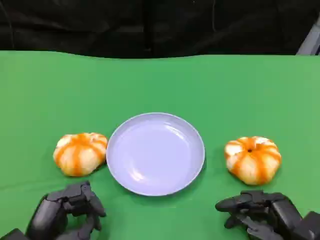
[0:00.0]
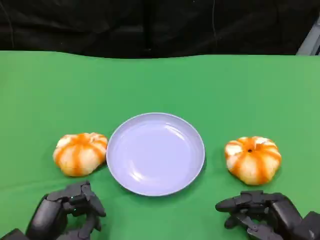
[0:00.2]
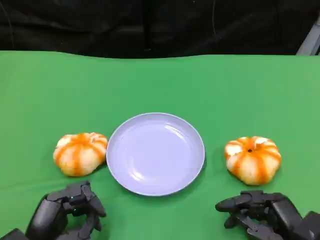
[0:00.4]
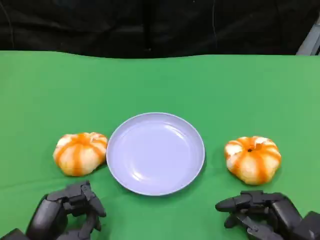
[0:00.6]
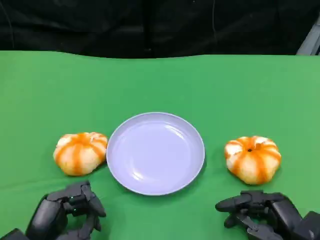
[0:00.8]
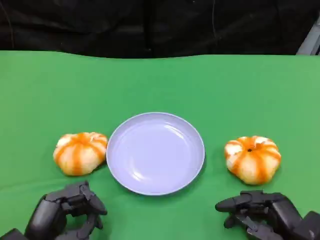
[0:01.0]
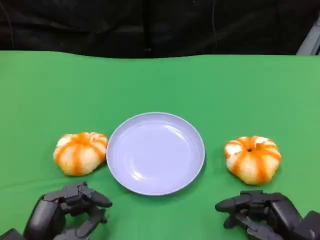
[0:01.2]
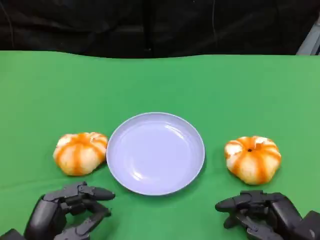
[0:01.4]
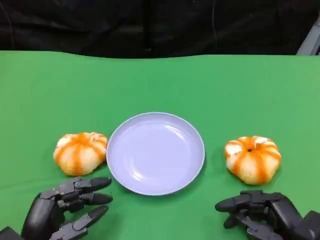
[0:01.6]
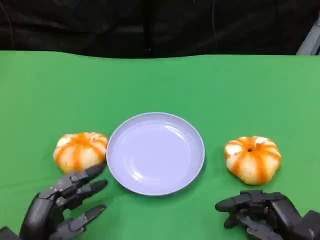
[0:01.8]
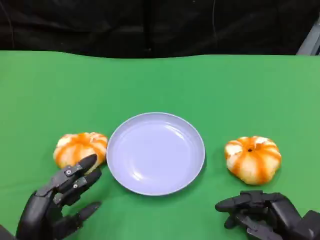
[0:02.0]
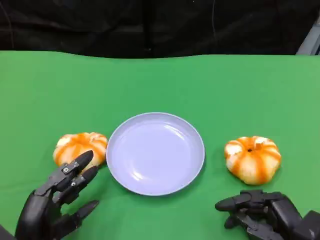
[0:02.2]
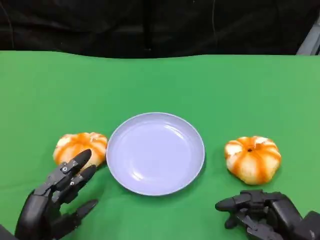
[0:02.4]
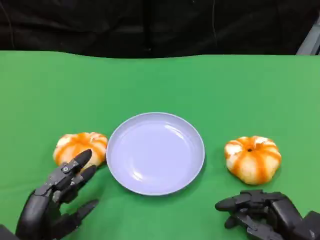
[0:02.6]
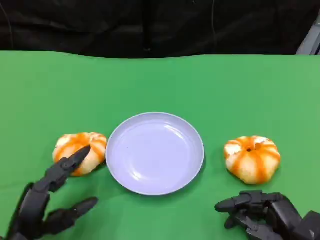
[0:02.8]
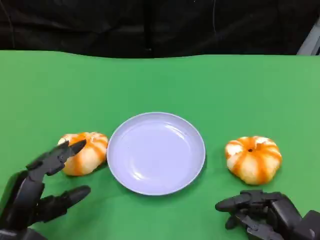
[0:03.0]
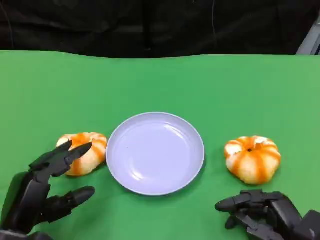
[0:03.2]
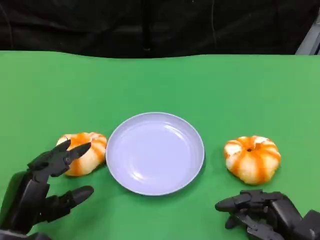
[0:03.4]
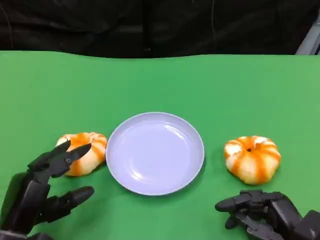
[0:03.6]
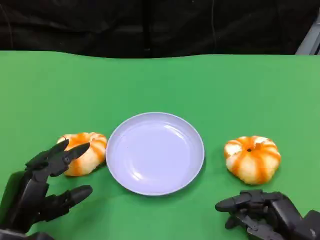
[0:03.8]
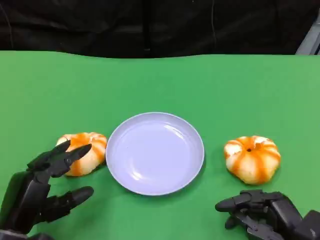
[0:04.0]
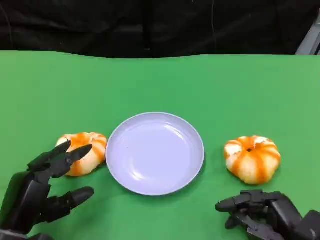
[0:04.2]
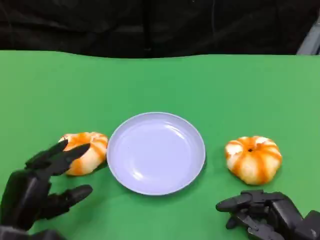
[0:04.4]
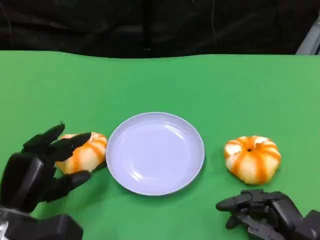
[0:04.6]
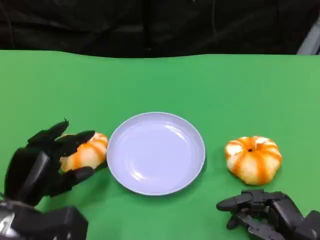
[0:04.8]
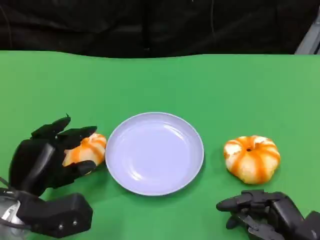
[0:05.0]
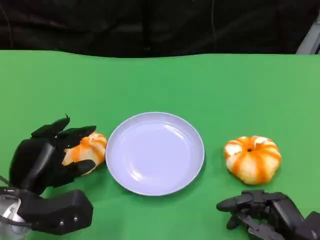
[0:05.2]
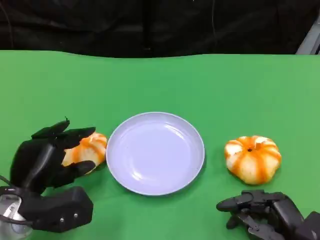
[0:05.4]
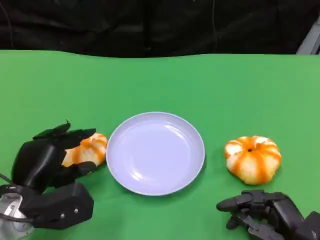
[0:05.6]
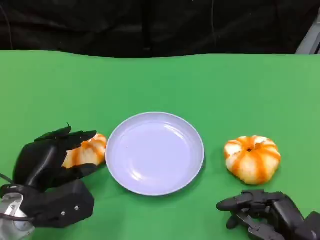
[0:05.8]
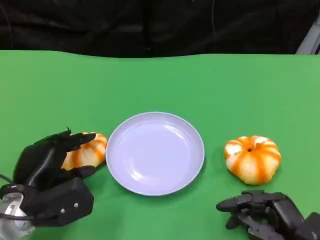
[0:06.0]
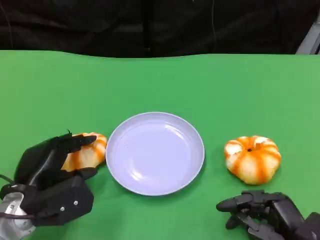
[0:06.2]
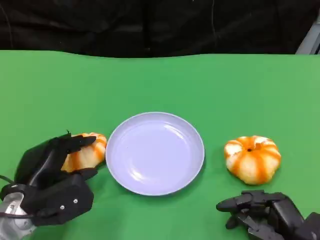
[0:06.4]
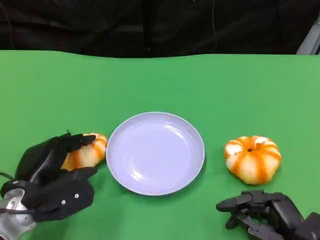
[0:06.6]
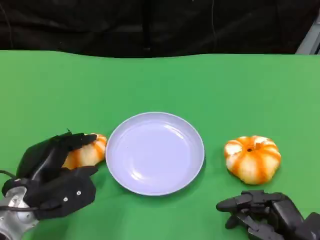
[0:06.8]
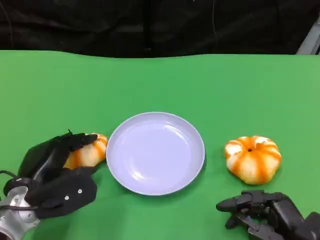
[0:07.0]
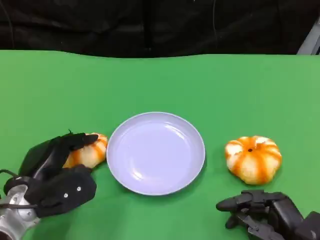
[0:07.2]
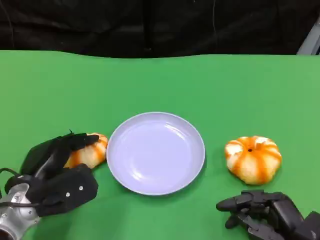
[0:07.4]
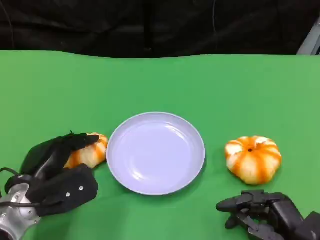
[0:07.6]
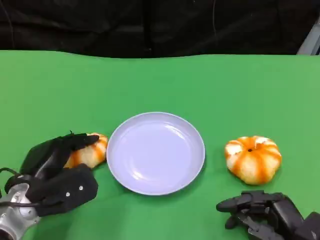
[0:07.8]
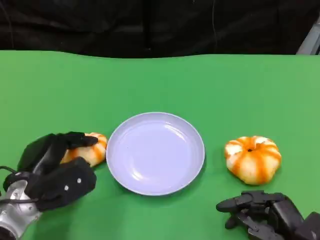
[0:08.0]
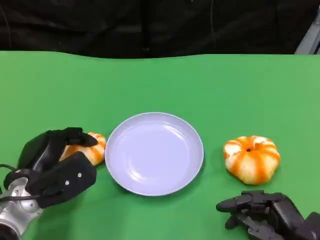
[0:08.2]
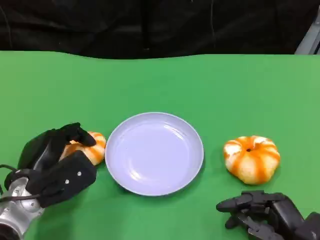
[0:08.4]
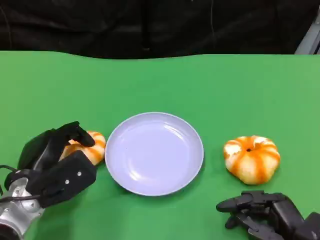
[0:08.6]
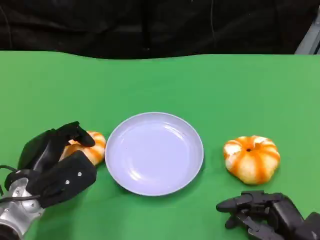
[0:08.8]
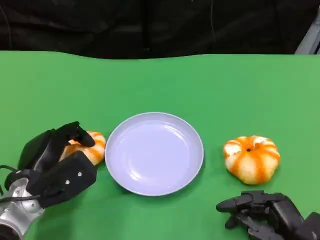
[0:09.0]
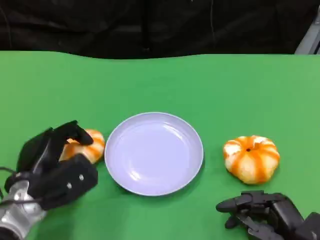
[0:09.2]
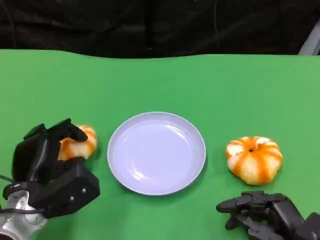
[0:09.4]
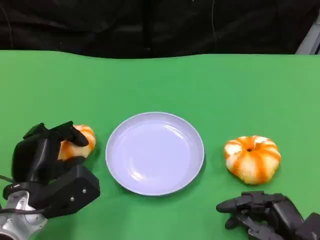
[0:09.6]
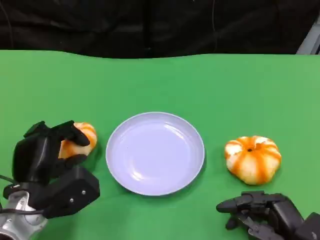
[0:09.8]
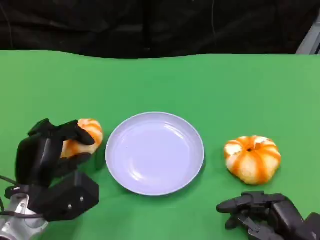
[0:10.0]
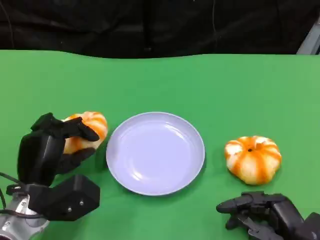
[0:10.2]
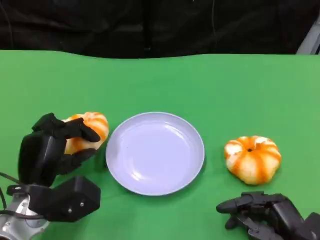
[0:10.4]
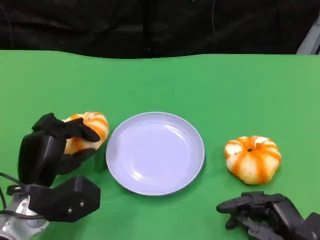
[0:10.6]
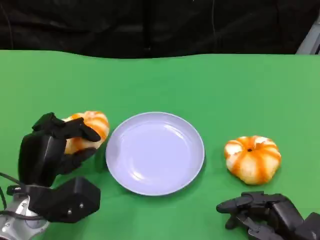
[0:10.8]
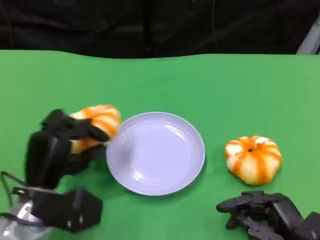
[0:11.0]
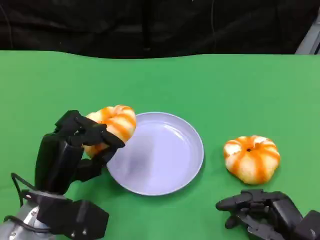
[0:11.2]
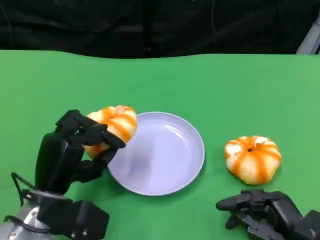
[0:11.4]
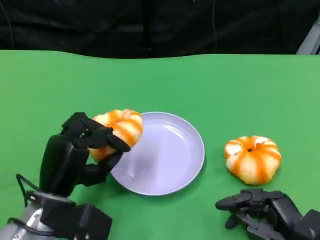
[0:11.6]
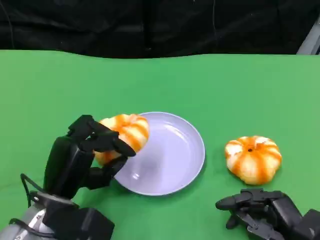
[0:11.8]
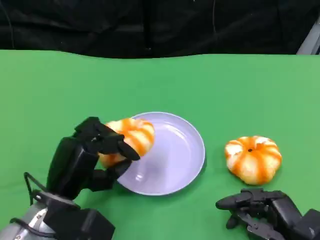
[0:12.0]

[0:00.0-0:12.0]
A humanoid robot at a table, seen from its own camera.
Task of the whole recording: Grasp the bread from the table and place it into the plate.
0:00.0 to 0:01.6: Neither hand changes place.
0:03.0 to 0:04.4: There are only small adjustments of the hands.
0:04.4 to 0:06.0: The left hand moves roughly 5 cm.
0:06.0 to 0:09.0: The hands move only a little.

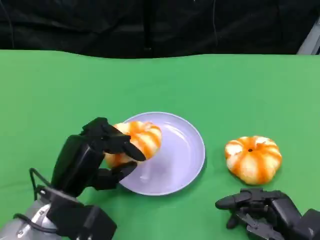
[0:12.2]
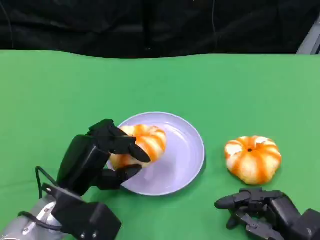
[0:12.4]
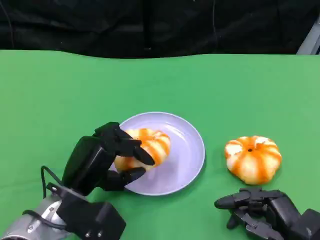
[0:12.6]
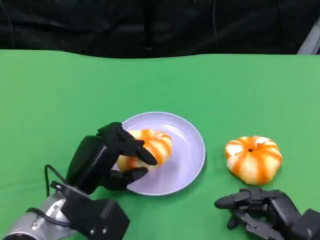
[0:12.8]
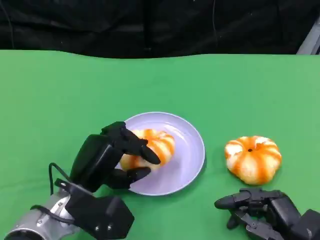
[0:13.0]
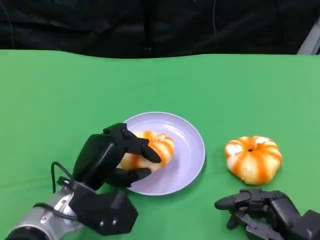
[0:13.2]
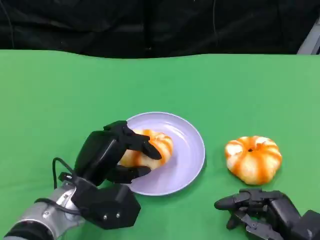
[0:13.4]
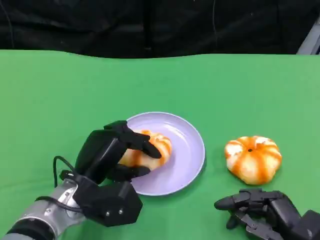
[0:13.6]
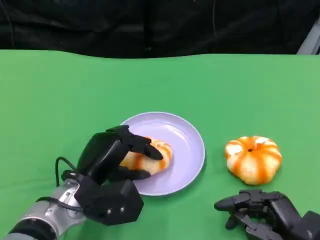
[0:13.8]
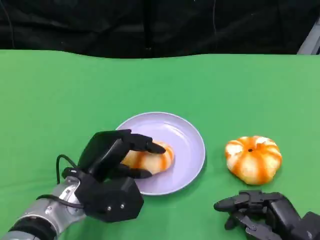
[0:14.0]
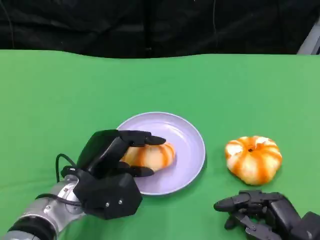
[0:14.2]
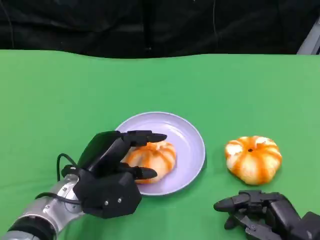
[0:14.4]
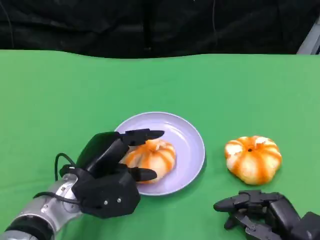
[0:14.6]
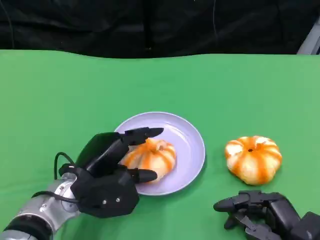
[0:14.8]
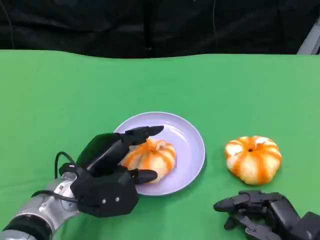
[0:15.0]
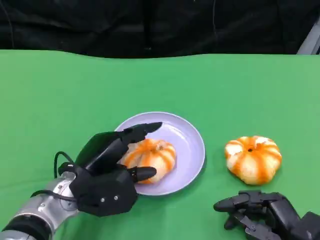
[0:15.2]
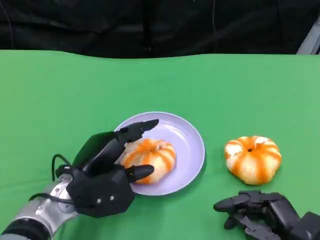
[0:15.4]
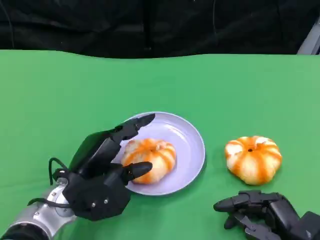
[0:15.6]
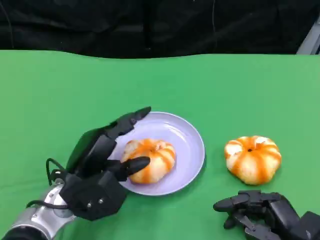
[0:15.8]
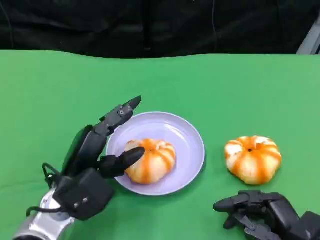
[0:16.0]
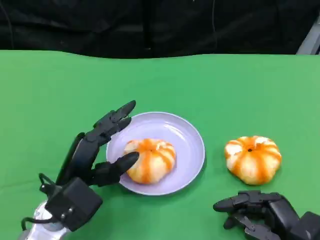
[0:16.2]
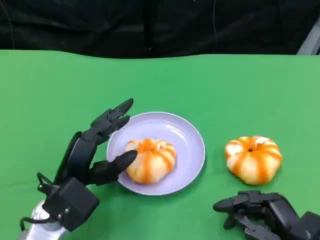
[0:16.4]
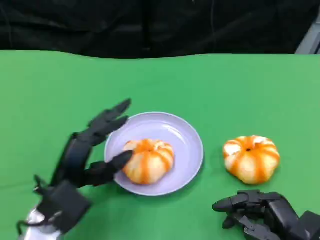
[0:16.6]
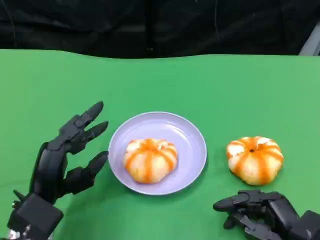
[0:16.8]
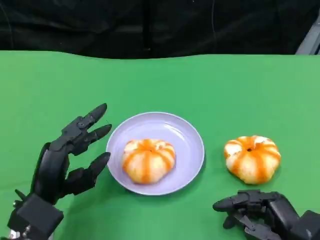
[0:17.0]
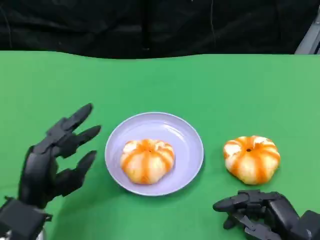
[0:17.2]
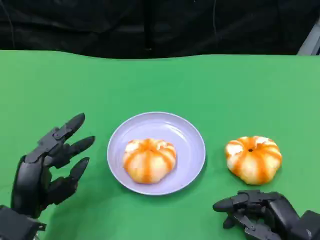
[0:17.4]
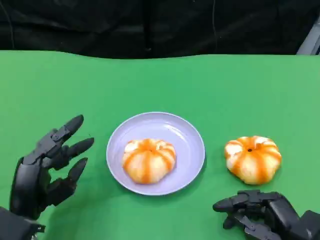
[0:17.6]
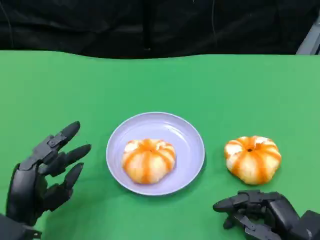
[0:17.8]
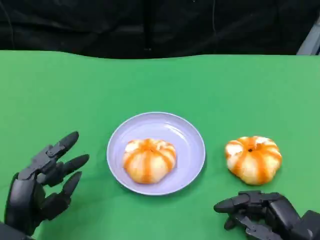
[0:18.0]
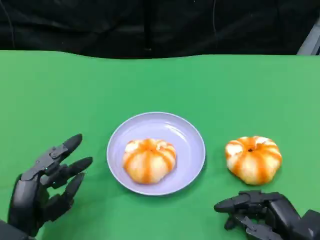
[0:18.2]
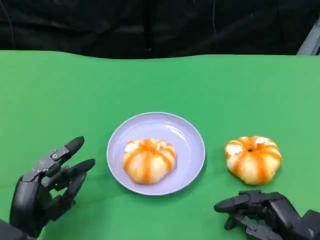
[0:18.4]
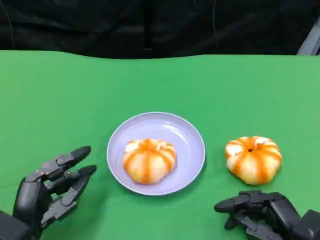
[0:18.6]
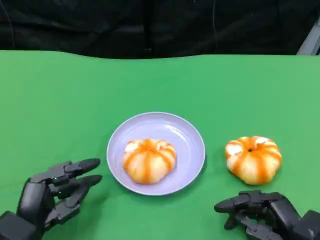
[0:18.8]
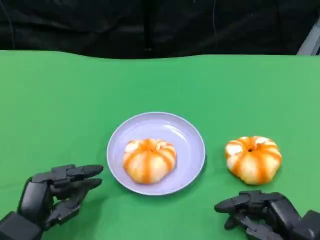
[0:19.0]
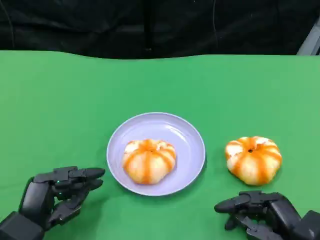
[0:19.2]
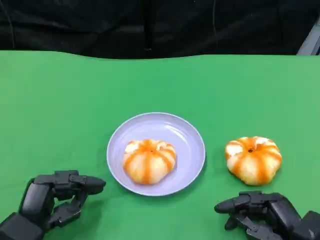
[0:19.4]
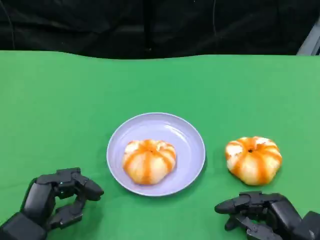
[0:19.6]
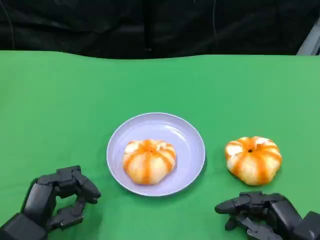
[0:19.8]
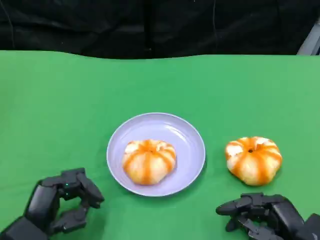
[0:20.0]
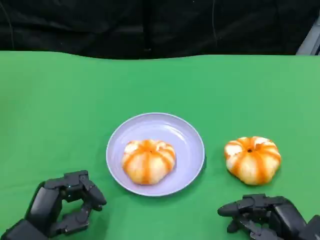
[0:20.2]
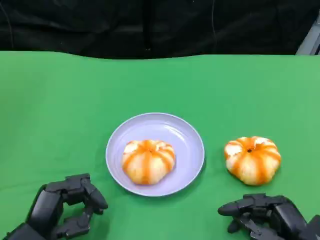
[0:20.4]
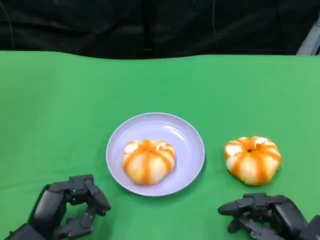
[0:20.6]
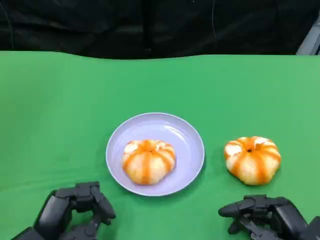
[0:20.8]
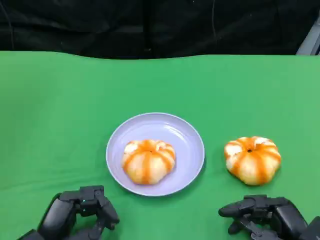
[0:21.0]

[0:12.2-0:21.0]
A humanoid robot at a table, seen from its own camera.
Task of the whole recording: Grasp the bread from the table and place it into the plate.
0:12.2 to 0:13.6: There are only small adjustments of the hands.
0:13.6 to 0:15.2: The hands move only a little.
0:16.6 to 0:18.0: The left hand shifts by some 5 cm.
0:18.0 to 0:21.0: The hands stay close to where they were, moving slightly.

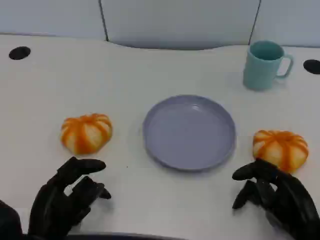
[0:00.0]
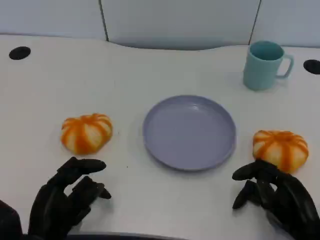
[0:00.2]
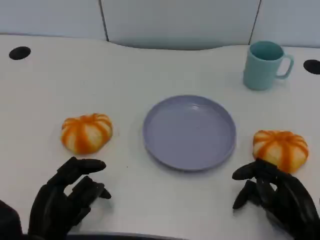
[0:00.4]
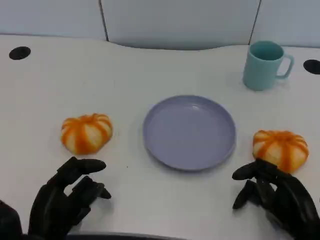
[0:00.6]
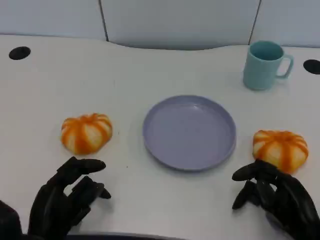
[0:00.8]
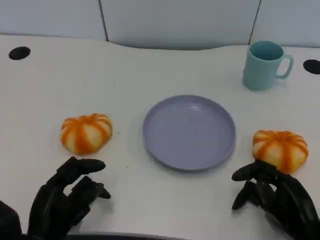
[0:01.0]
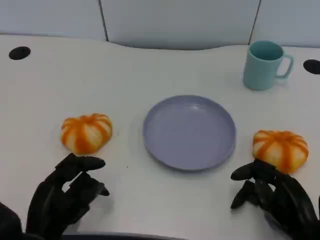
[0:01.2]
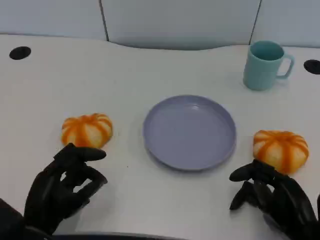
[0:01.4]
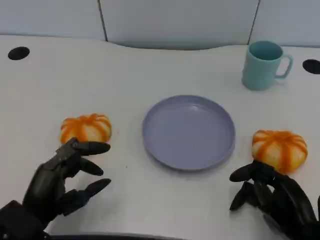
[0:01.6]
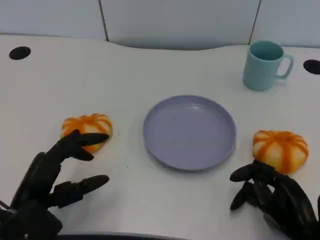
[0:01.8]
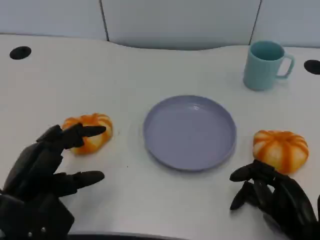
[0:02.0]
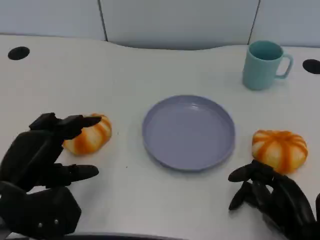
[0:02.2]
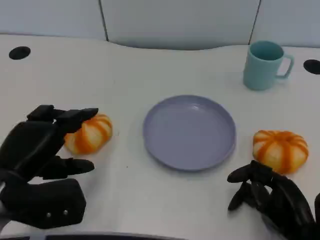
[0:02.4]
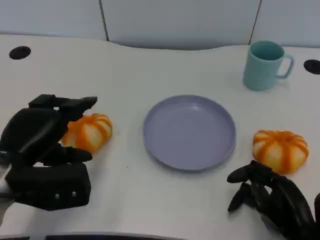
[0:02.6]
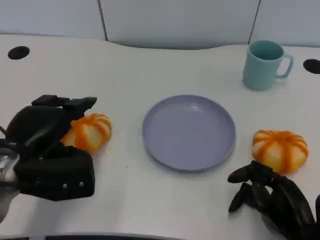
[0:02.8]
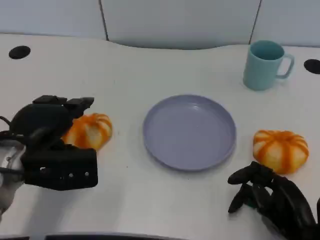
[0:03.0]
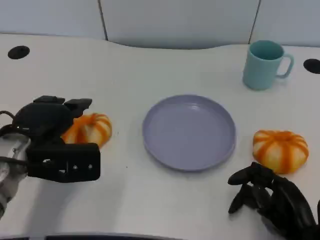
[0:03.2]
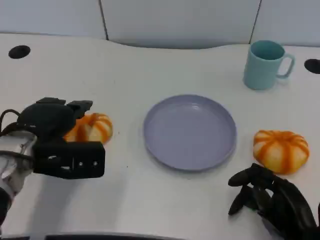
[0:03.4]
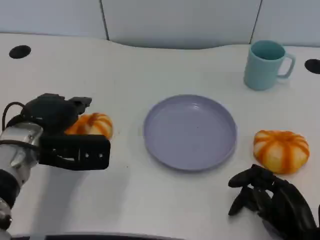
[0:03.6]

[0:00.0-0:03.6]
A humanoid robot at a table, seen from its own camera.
Task of the whole recording: Grasp the bread from the table and place it into the plate.
0:00.0 to 0:01.8: The left hand travels upward by approximately 5 cm.
0:01.8 to 0:03.6: The left hand travels forward by roughly 10 cm.
